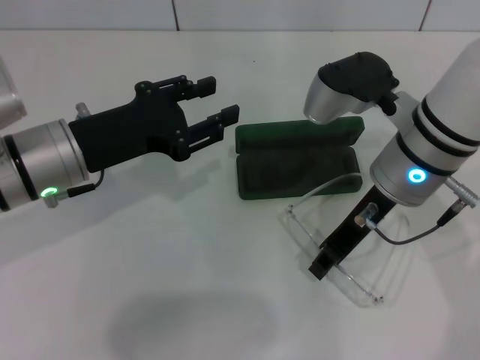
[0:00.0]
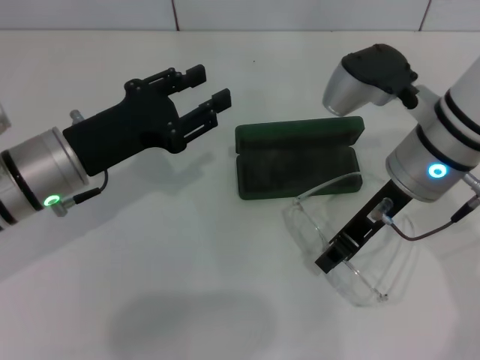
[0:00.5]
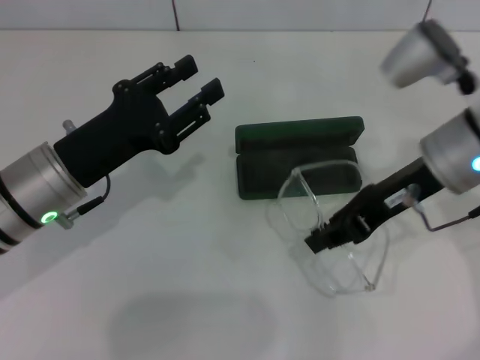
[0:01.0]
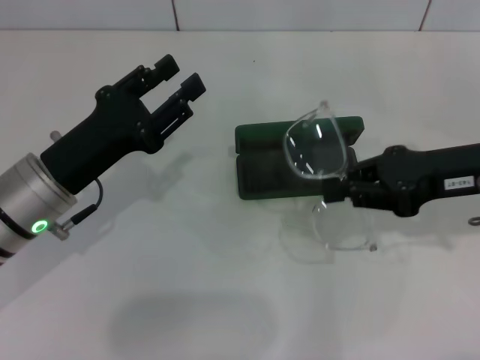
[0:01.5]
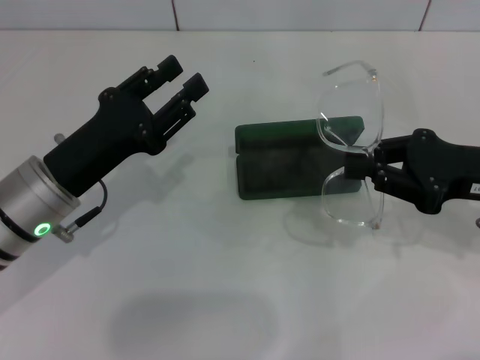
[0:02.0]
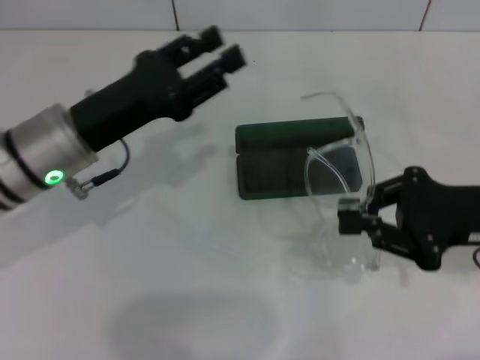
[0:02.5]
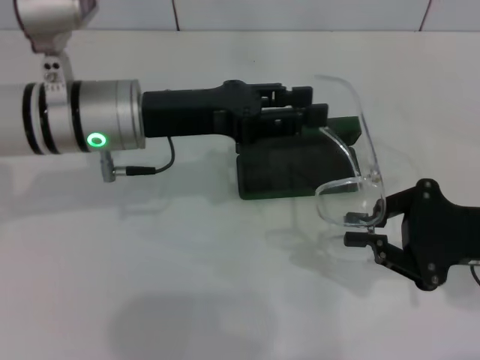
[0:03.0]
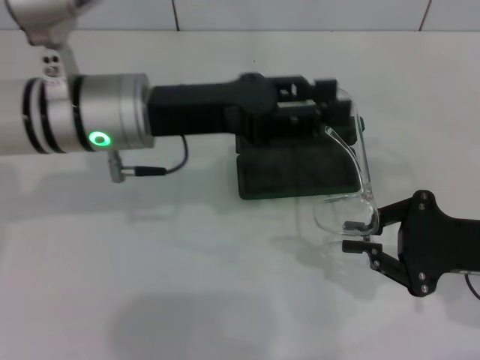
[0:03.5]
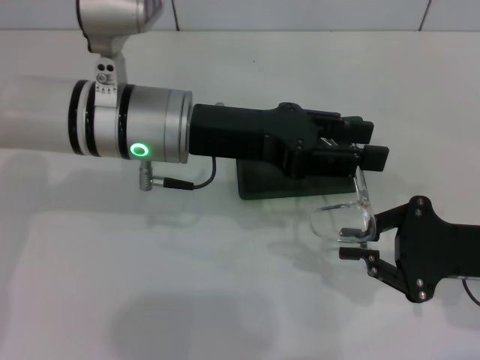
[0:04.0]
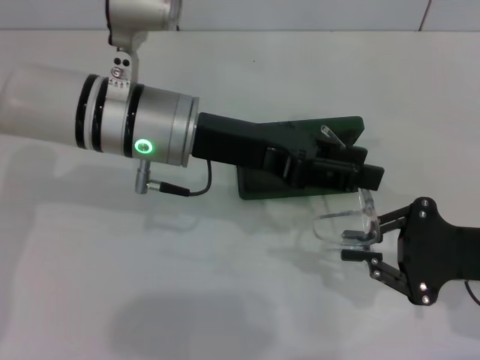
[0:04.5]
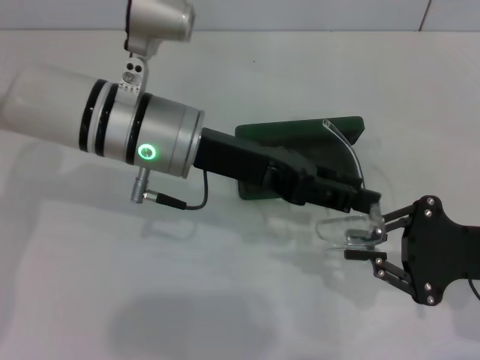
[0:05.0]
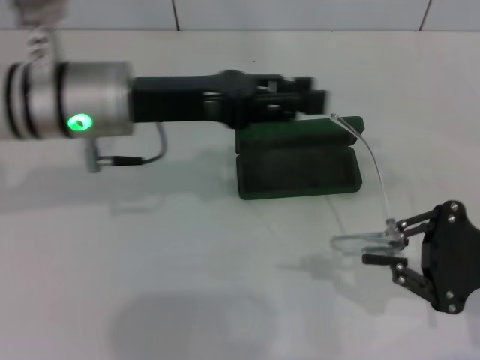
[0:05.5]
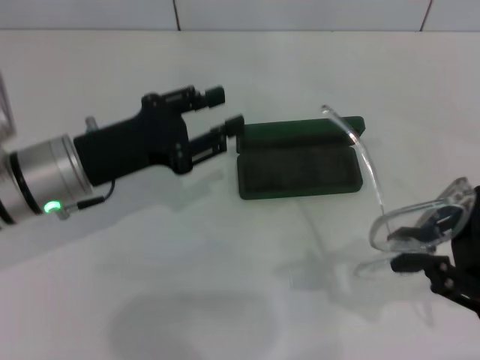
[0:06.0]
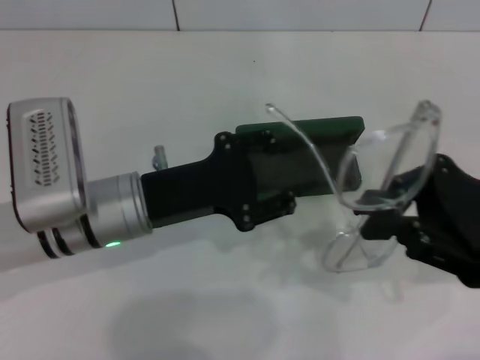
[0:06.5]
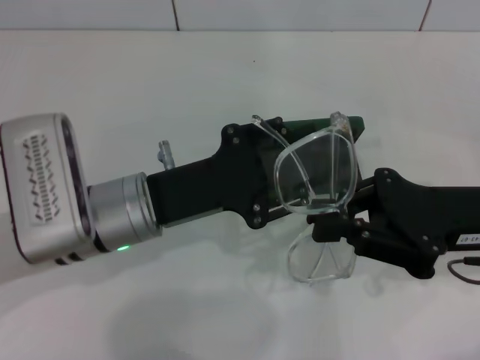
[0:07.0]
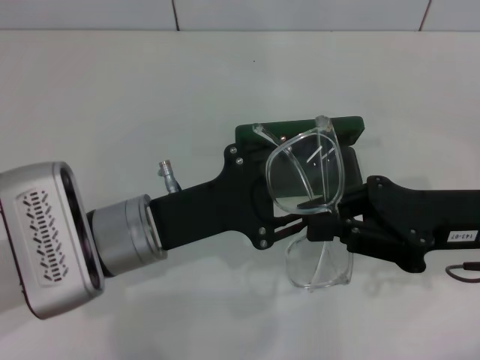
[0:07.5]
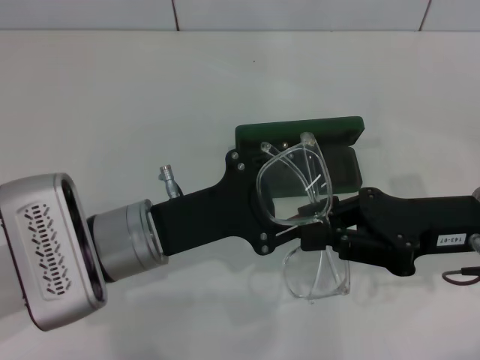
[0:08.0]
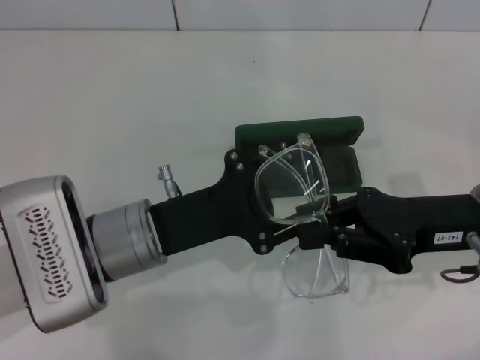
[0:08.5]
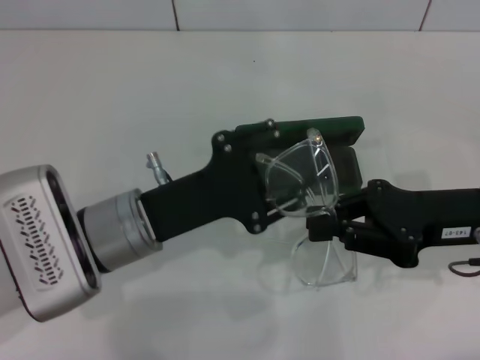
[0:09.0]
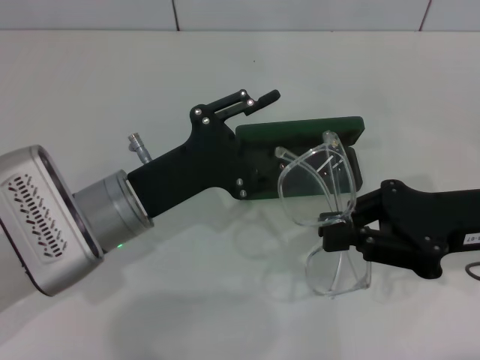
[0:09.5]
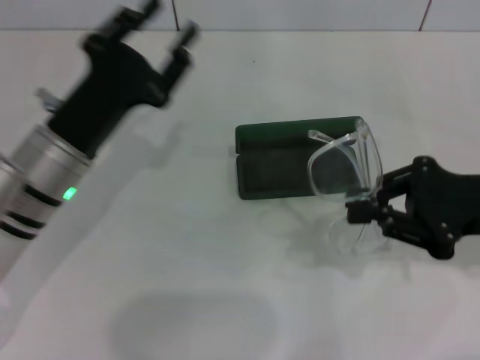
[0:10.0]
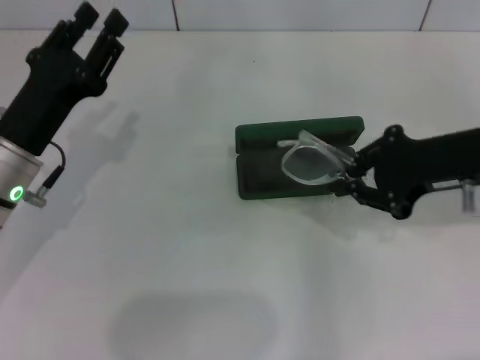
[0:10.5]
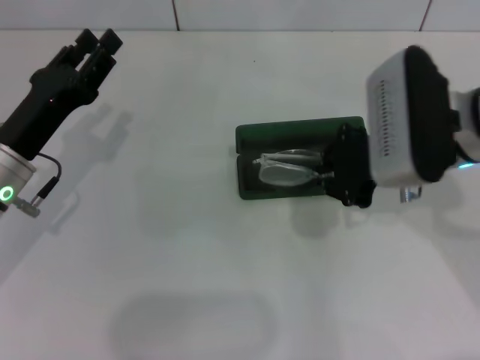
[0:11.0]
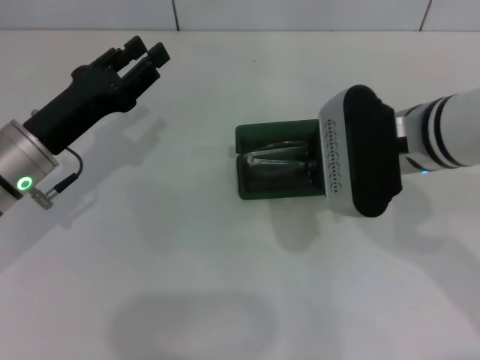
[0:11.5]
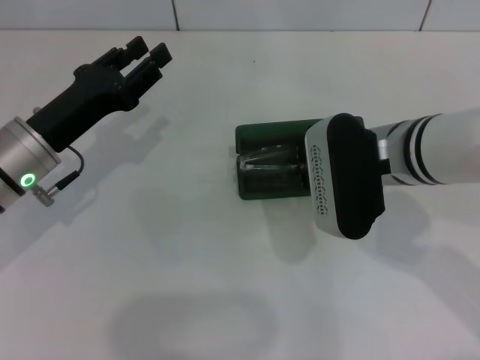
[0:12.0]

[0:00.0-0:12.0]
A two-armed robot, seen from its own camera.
Step, 0:00.5 to 0:08.5: Fold the frame with your left hand.
0:00.0 to 0:02.0: The left gripper moves approximately 5 cm, while the right gripper travels to the right by roughly 15 cm.
0:02.0 to 0:04.0: The right gripper moves about 5 cm; the left gripper shifts about 15 cm to the right, upward and forward.
0:04.0 to 0:06.0: The left gripper travels to the left and downward by approximately 10 cm.
0:06.0 to 0:08.0: The left gripper heads to the right and backward, covering roughly 10 cm. The right gripper travels to the left by approximately 5 cm.
0:08.0 to 0:10.0: The left gripper shifts about 5 cm to the left.
0:10.0 to 0:12.0: The right gripper is displaced to the left by some 15 cm.

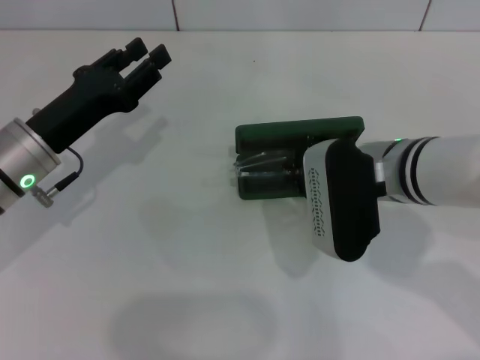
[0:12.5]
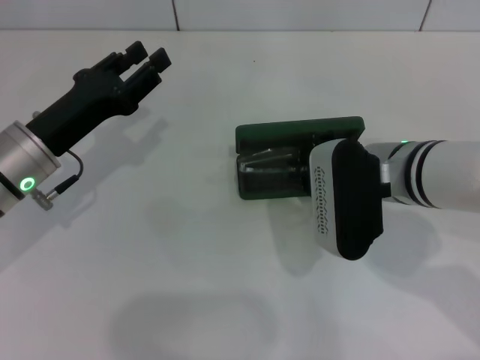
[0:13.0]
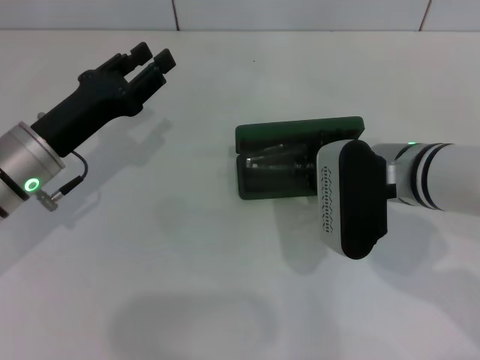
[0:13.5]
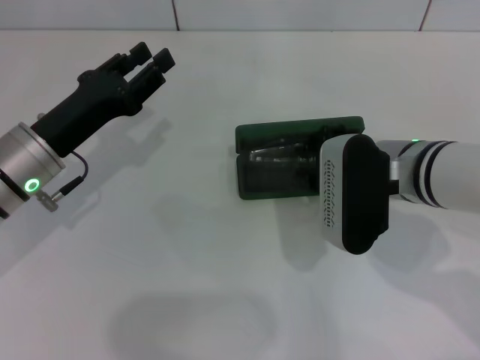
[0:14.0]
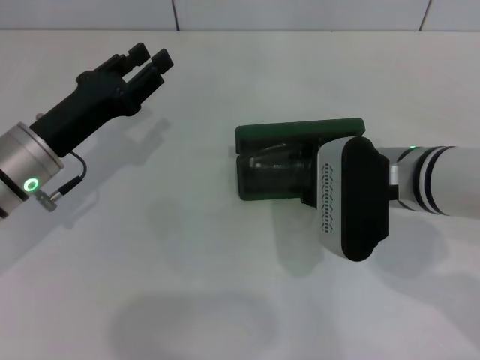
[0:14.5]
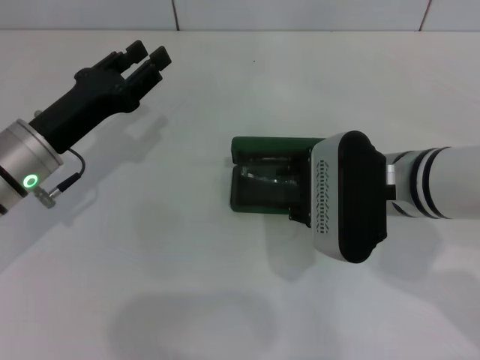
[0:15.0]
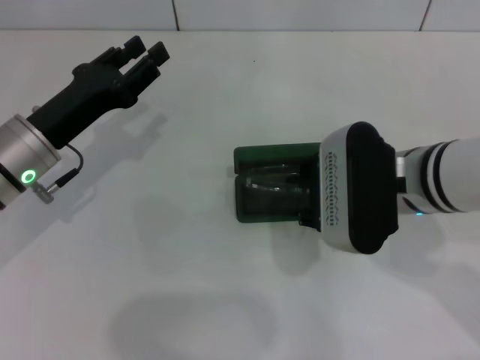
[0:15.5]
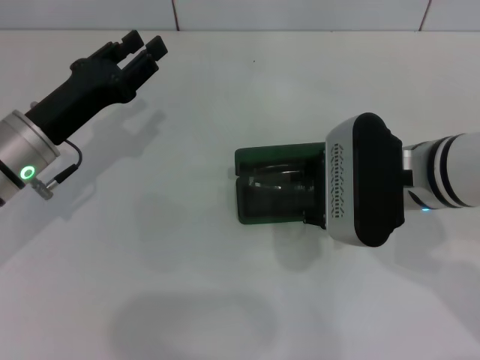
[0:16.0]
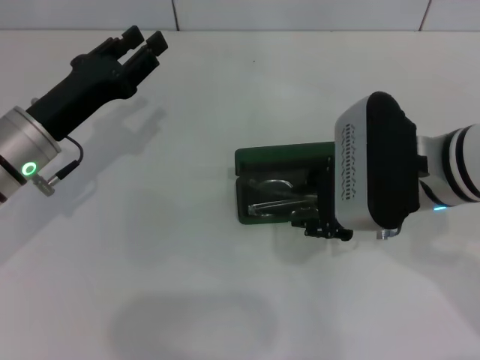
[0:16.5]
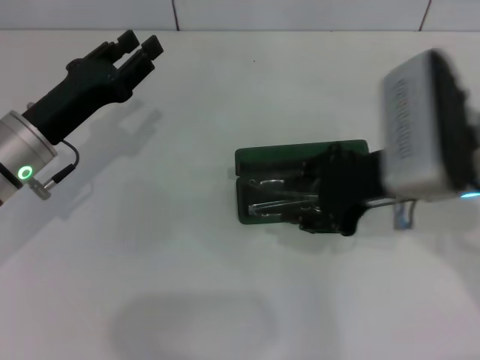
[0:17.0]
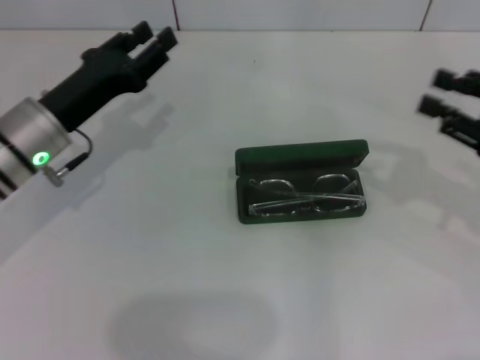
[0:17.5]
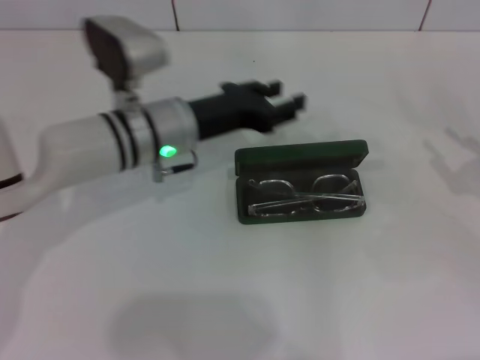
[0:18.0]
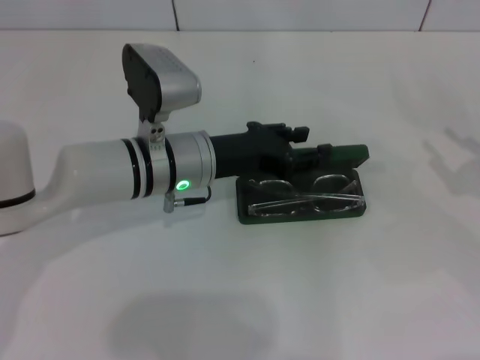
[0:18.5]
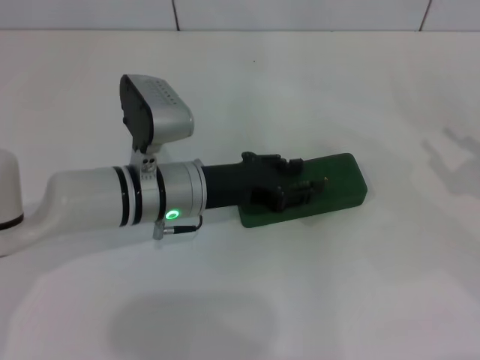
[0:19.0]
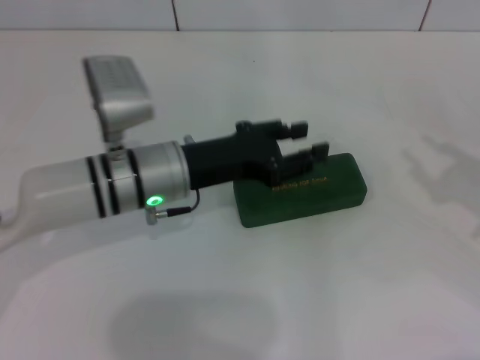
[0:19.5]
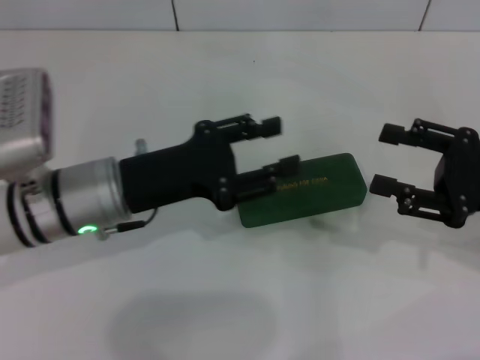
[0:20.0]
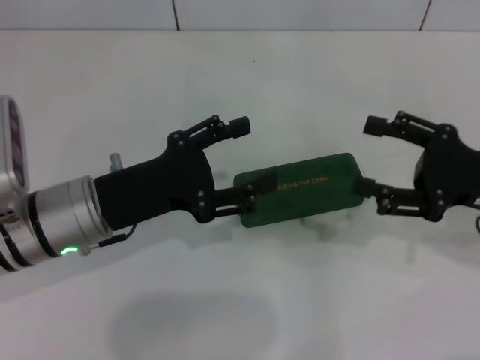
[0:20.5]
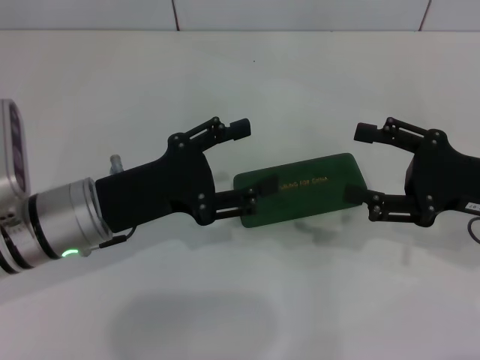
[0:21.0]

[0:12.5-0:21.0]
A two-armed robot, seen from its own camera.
Step, 0:12.5 to 0:15.0: Put the glasses into the case with your right hand.
Step, 0:15.5 to 0:19.0: Close the glasses case with your left hand.
0:12.5 to 0:14.5: The right gripper opens up.
0:14.5 to 0:16.5: The grippers make only small movements.
0:16.5 to 0:19.0: The right gripper goes some 20 cm to the right. The left gripper is displaced to the right by roughly 15 cm.
0:19.0 to 0:21.0: The right gripper moves to the left, approximately 10 cm, and opens up. Meanwhile the left gripper goes some 10 cm to the left and backward, and opens.

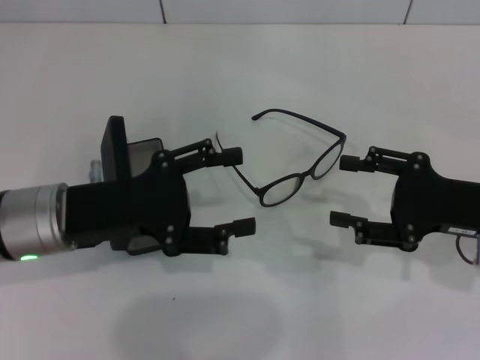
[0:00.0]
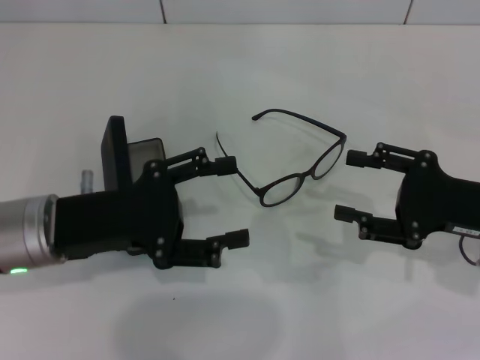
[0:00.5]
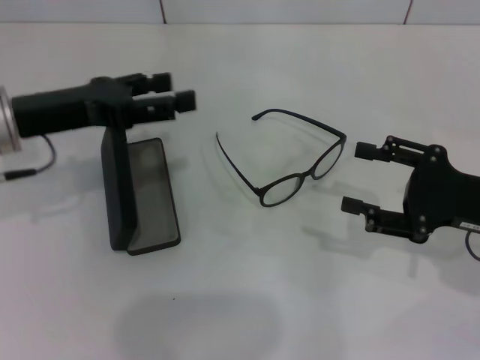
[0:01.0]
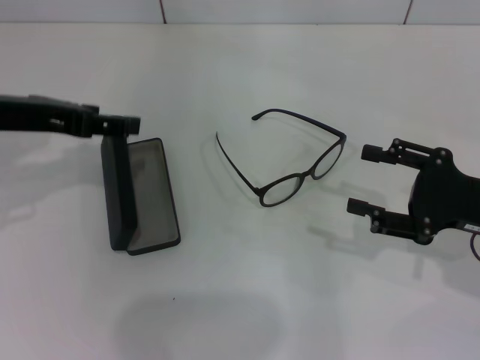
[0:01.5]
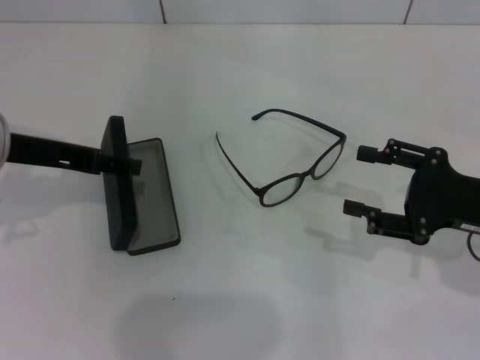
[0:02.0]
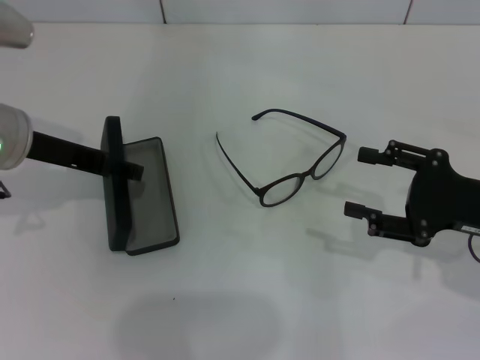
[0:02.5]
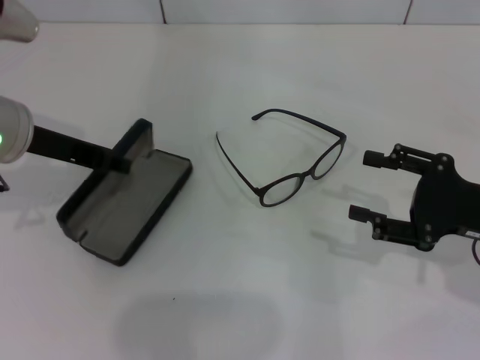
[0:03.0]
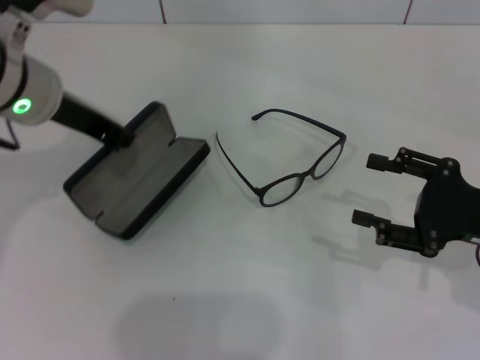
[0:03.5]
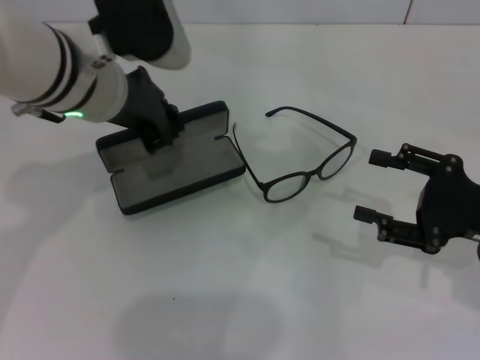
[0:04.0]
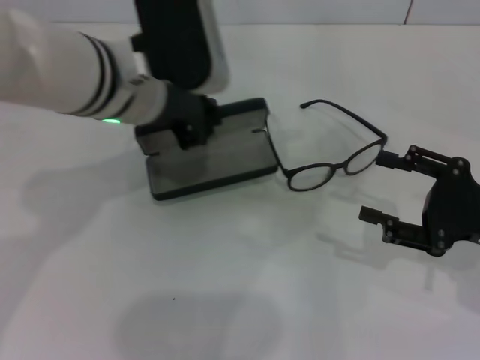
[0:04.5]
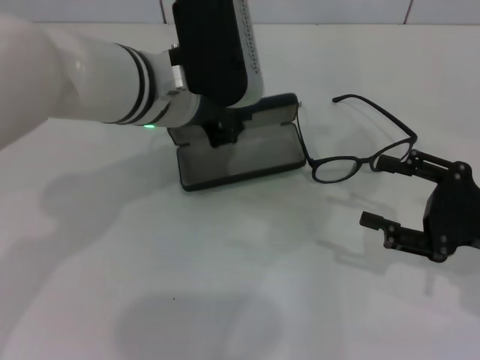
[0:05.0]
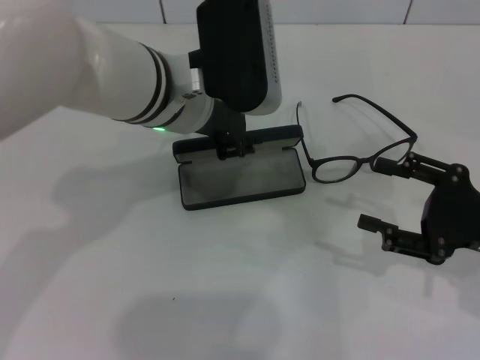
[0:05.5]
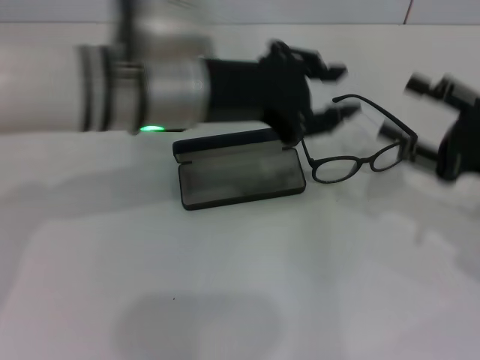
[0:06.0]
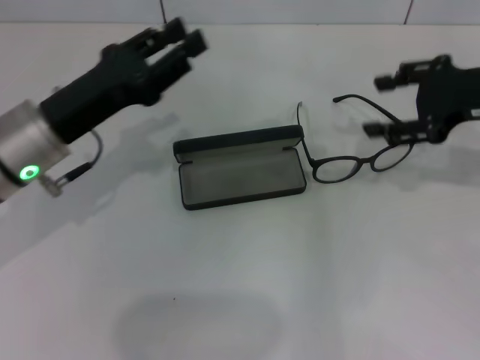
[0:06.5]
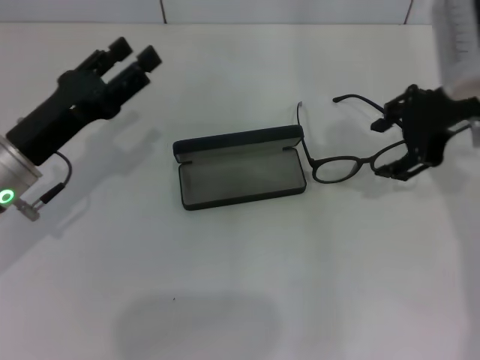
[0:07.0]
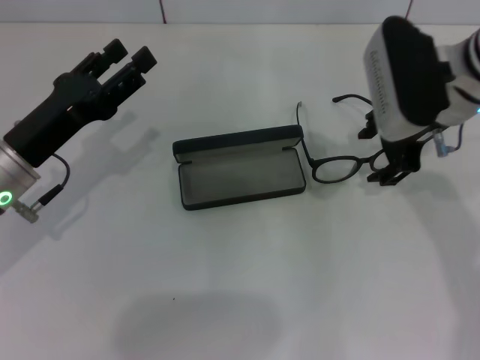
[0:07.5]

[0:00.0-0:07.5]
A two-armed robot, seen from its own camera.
Step, 0:00.0 to 0:03.0: Grab the glasses case with your left hand.
Step, 0:03.5 to 0:05.5: Place the glasses case in the center of the table with your left hand.
0:00.0 to 0:02.0: The left gripper travels upward by some 10 cm.
0:02.0 to 0:04.0: The left gripper shifts roughly 10 cm to the right, and closes its fingers.
0:04.0 to 0:05.5: The left gripper goes about 5 cm to the right.
0:05.5 to 0:07.5: The left gripper goes about 20 cm to the left and downward, and opens its fingers. Meanwhile the right gripper travels forward, to the left and upward by approximately 20 cm.
